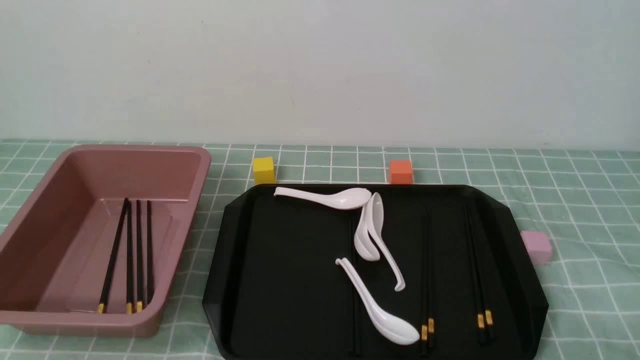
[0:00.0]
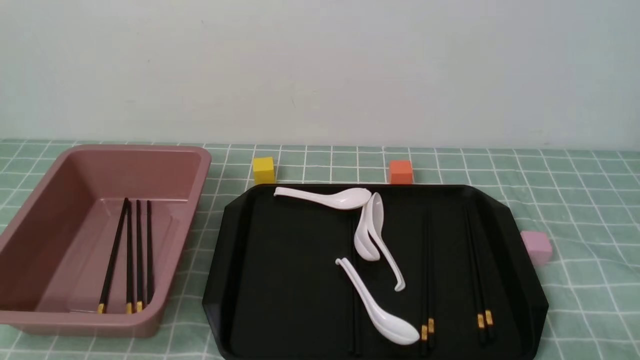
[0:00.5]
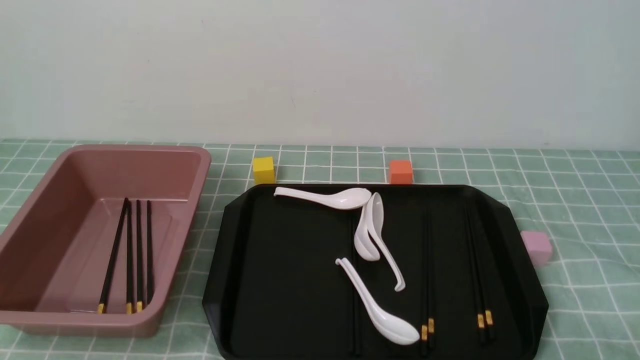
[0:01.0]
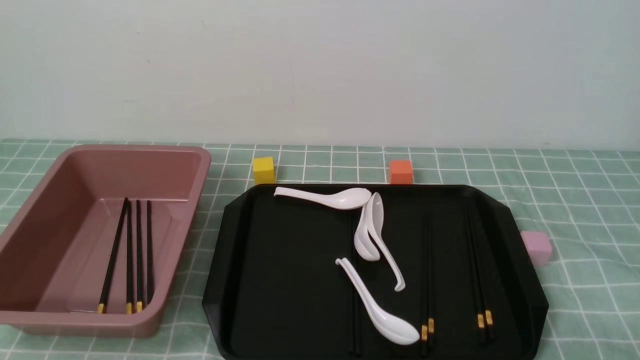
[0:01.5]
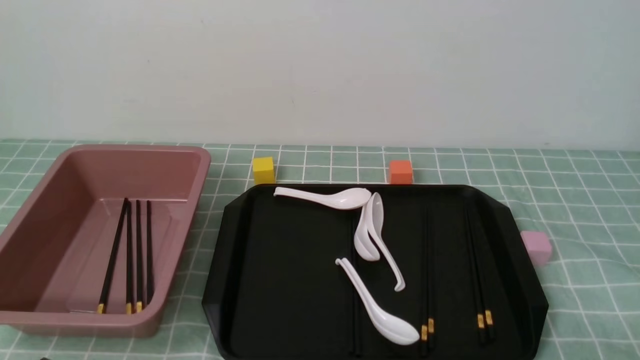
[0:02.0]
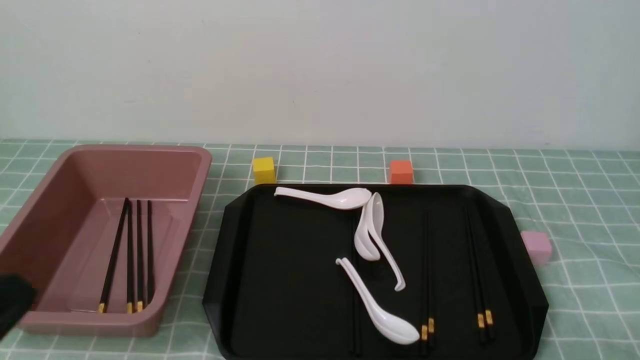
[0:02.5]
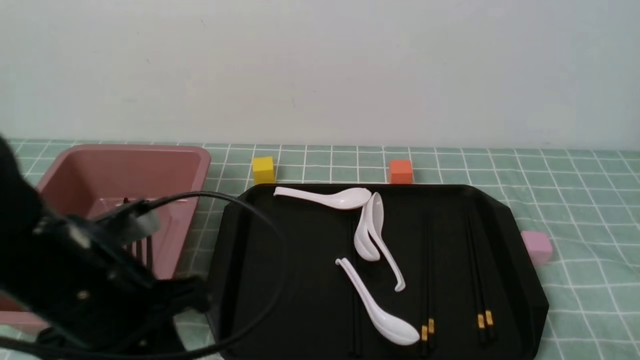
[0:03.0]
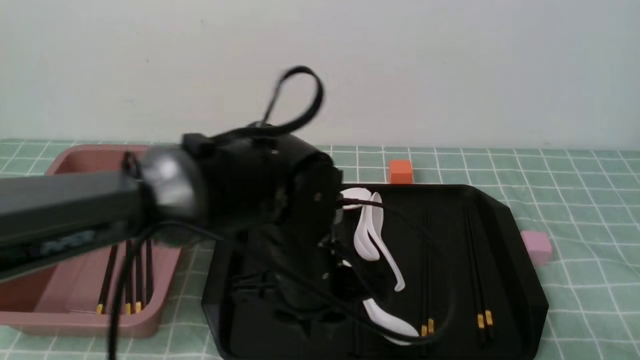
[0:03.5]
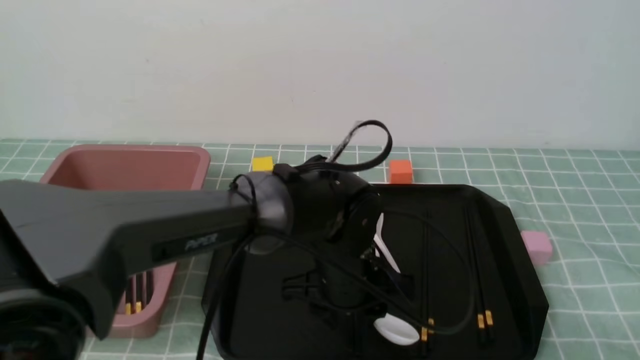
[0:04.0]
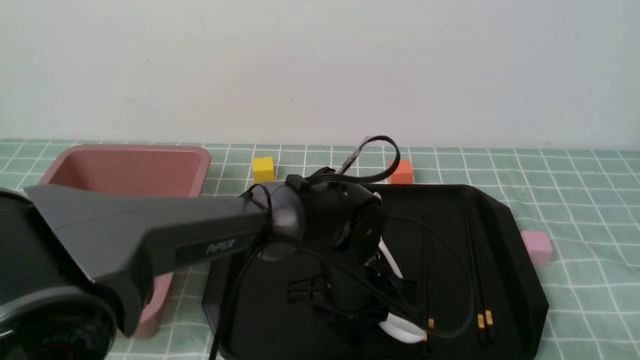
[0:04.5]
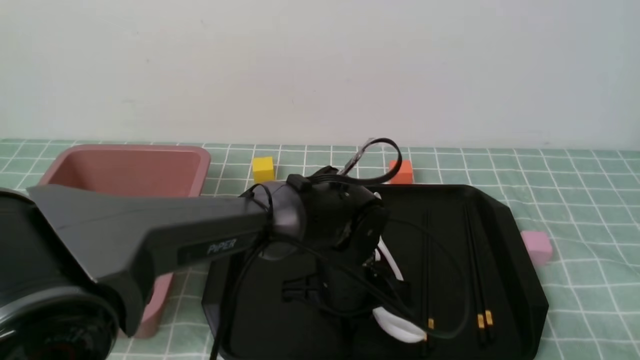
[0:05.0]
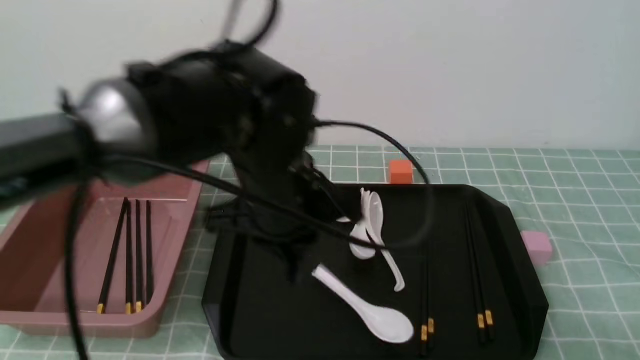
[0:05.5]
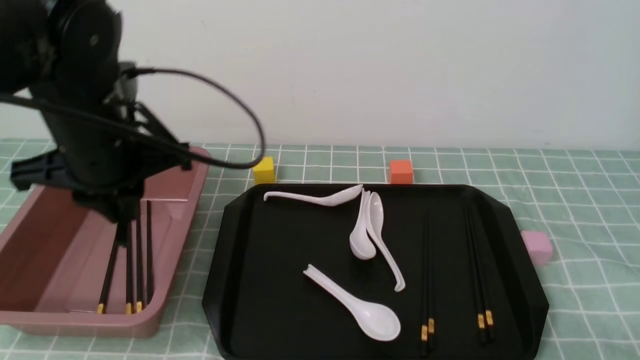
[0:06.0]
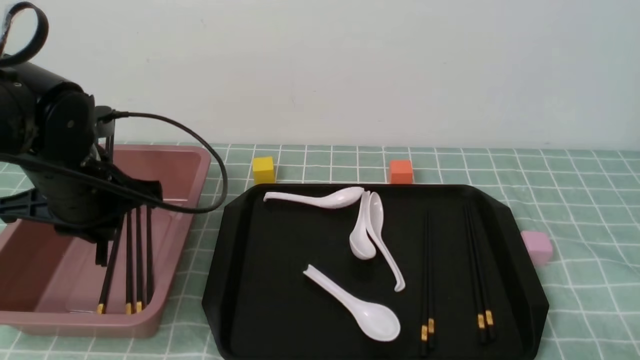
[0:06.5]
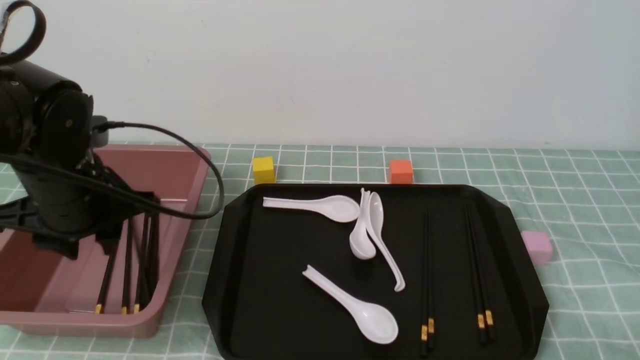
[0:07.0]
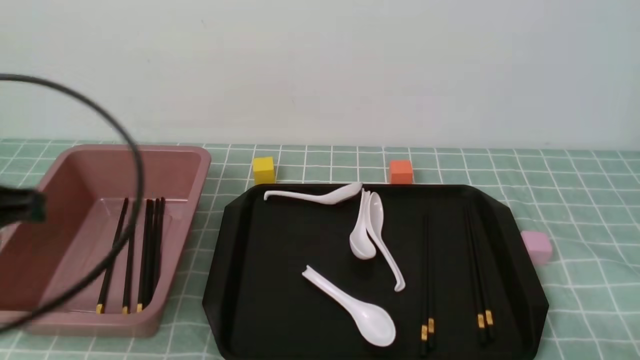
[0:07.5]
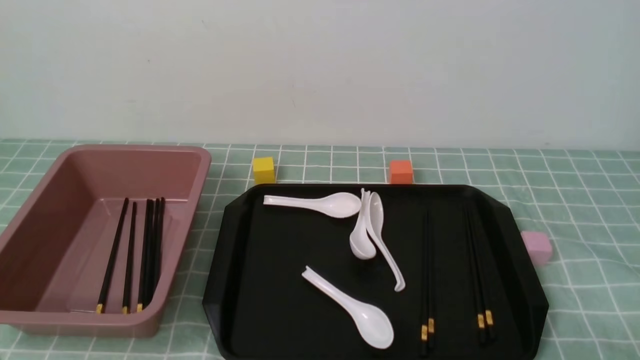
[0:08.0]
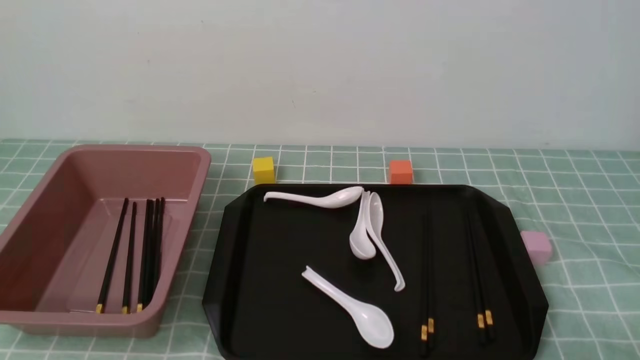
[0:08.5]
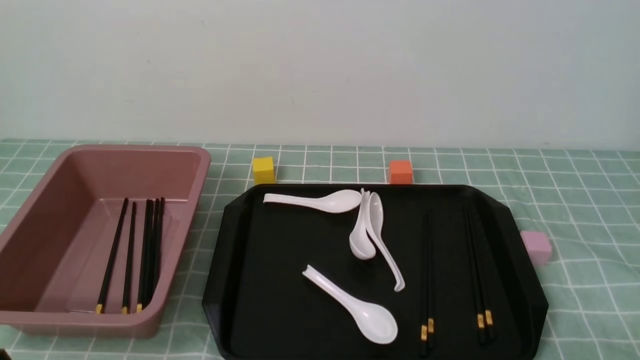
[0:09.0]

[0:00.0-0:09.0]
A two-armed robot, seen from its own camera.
Step, 0:00.0 to 0:05.0: use the left arm to grab a pair of chopsticks.
Step, 0:06.0 to 0:07.0: use the left arm to put the chopsticks into the lunch box.
0:02.0 to 0:04.5: The left gripper goes approximately 40 cm to the right and forward, and opens up.
0:04.5 to 0:07.0: The left gripper moves to the left and upward, roughly 30 cm.
0:07.0 to 0:09.0: The left gripper heads backward, covering some 25 cm, and closes up.

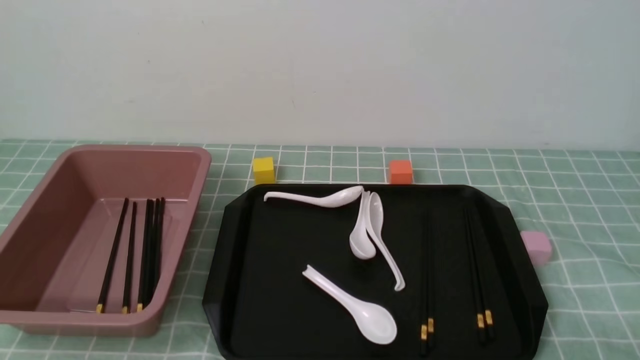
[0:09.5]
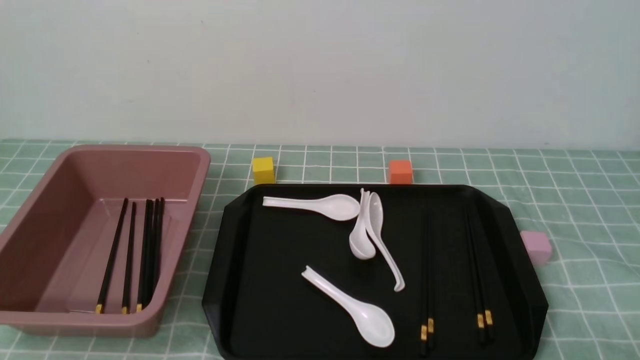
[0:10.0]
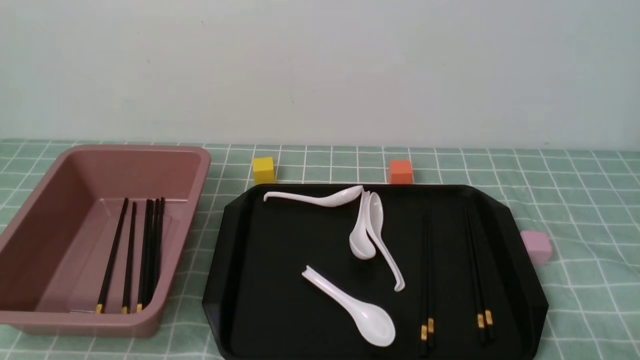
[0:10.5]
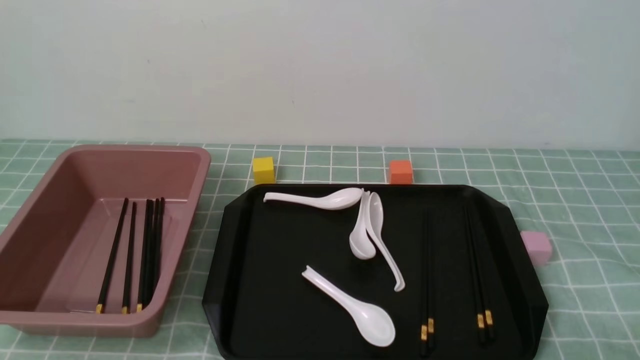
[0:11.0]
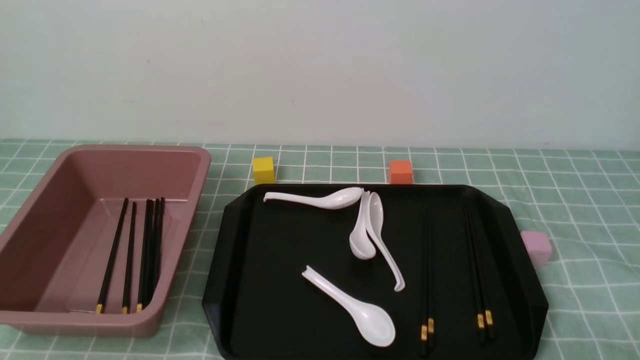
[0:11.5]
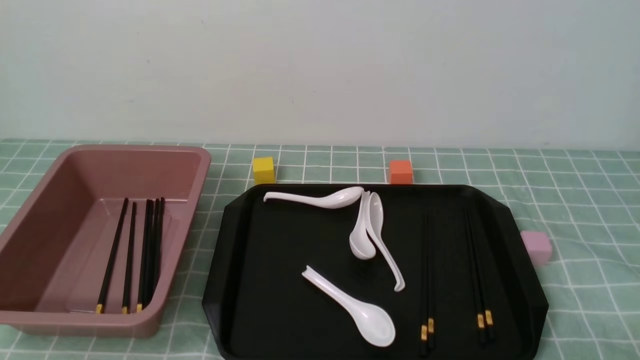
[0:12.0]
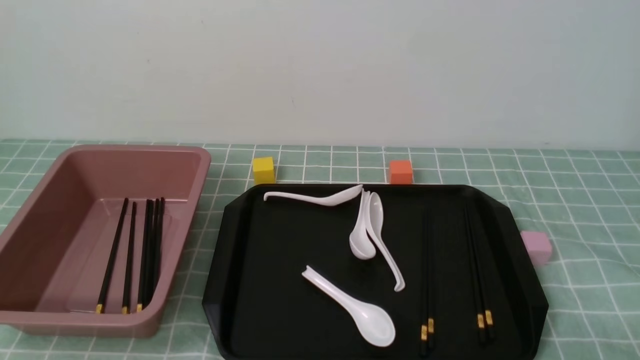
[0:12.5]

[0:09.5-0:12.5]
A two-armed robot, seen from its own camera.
0:09.5 to 0:12.5: Neither gripper changes place.
